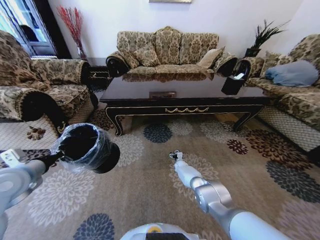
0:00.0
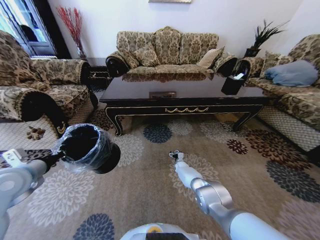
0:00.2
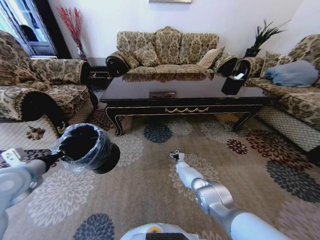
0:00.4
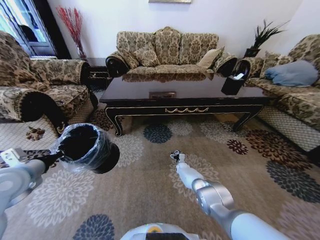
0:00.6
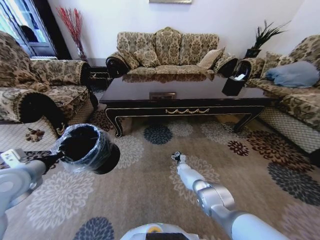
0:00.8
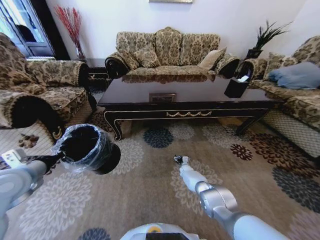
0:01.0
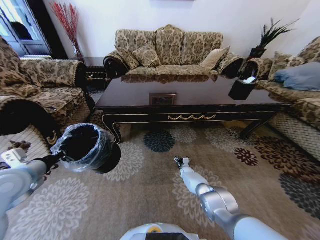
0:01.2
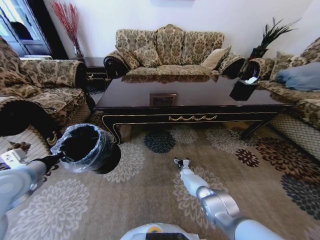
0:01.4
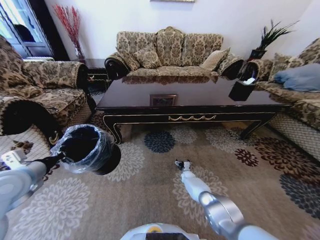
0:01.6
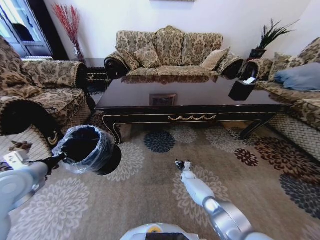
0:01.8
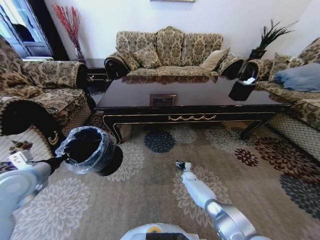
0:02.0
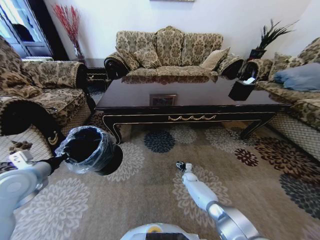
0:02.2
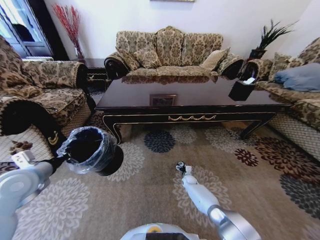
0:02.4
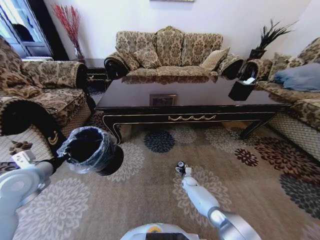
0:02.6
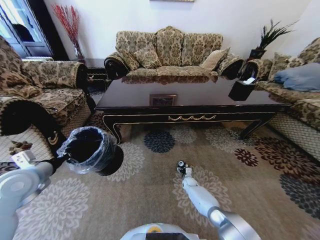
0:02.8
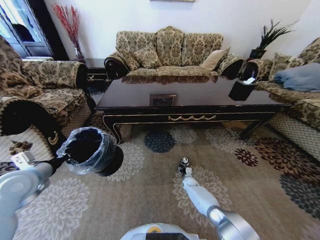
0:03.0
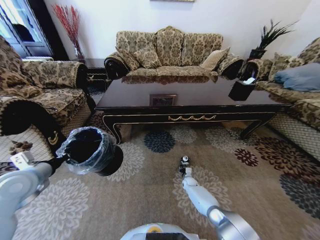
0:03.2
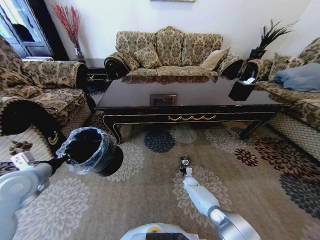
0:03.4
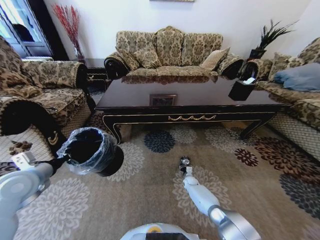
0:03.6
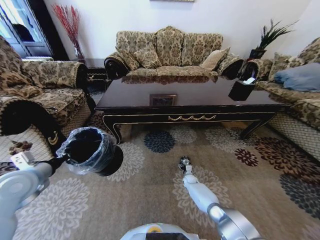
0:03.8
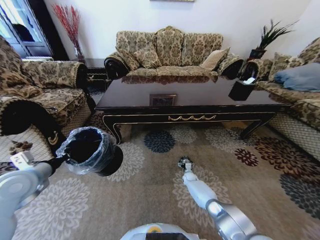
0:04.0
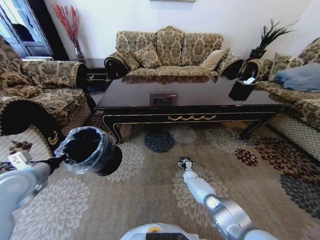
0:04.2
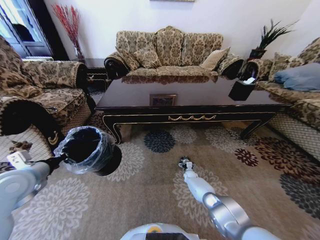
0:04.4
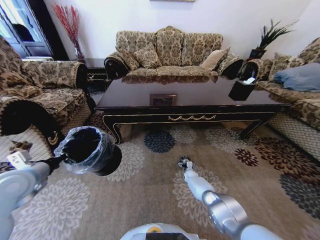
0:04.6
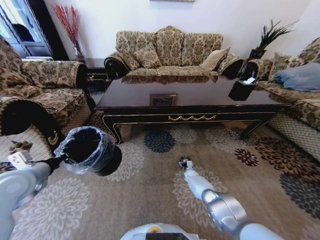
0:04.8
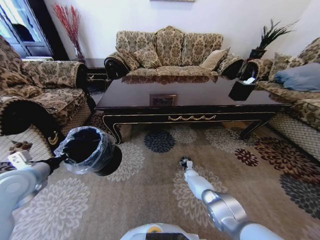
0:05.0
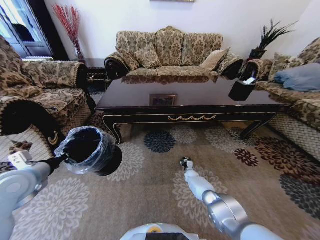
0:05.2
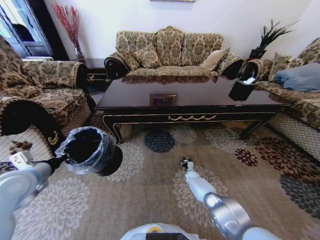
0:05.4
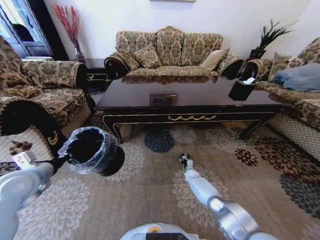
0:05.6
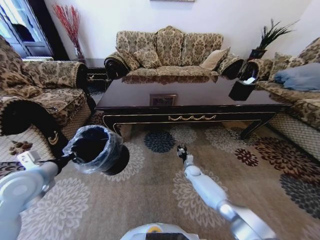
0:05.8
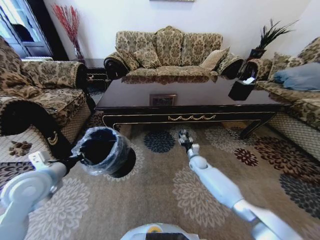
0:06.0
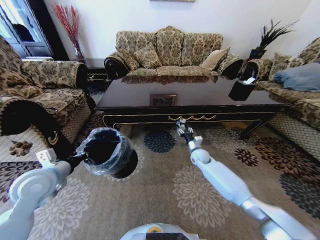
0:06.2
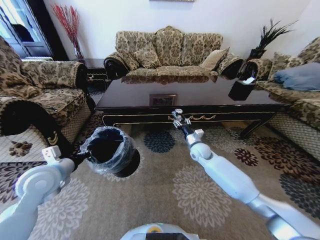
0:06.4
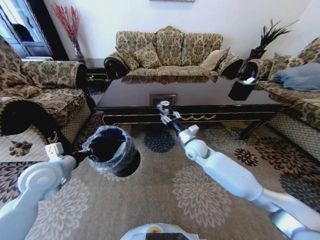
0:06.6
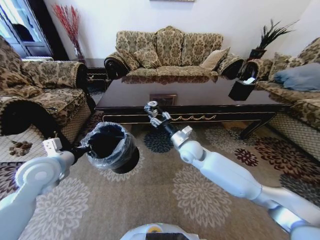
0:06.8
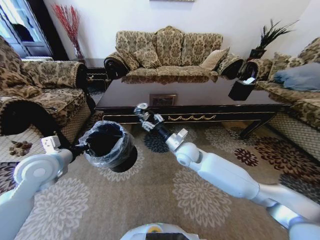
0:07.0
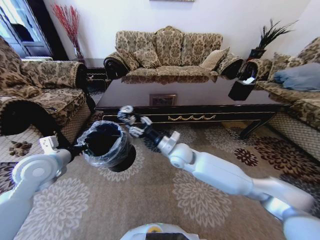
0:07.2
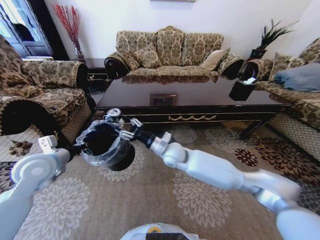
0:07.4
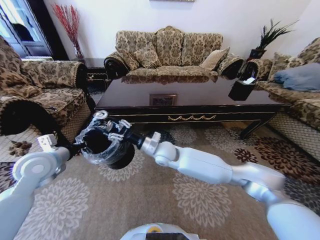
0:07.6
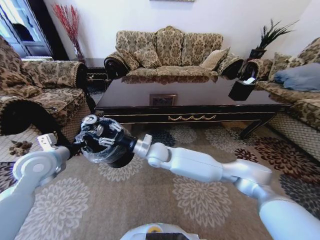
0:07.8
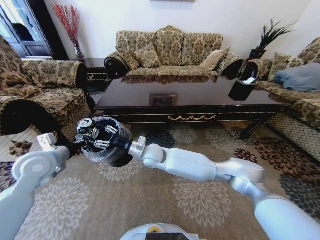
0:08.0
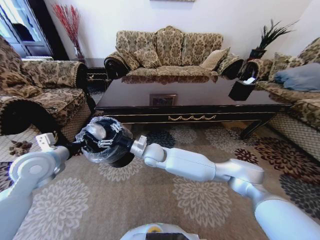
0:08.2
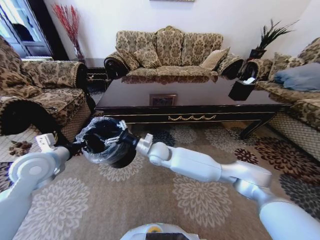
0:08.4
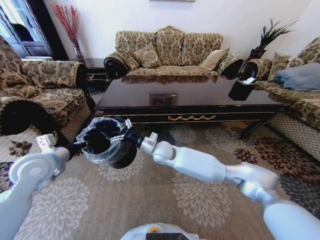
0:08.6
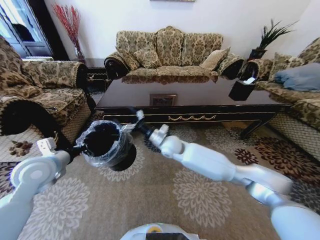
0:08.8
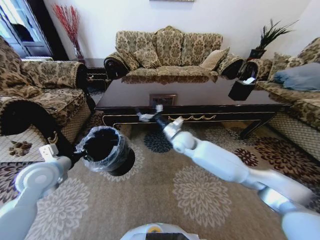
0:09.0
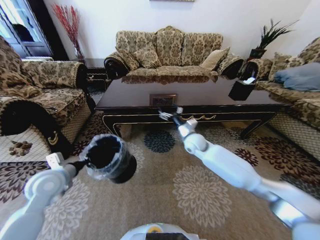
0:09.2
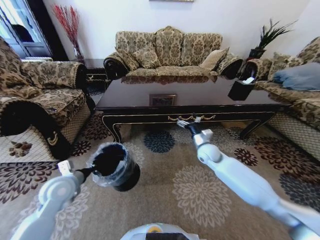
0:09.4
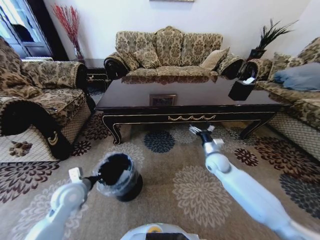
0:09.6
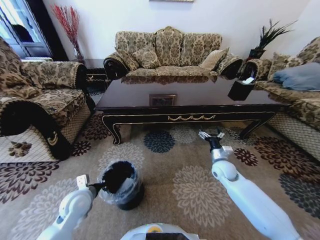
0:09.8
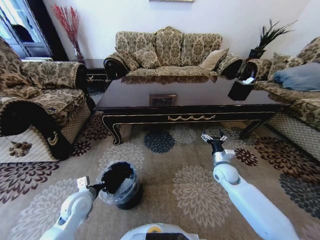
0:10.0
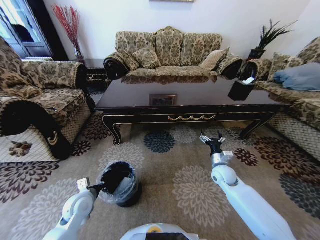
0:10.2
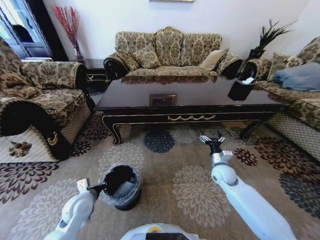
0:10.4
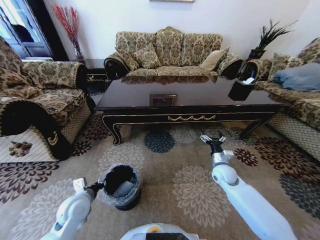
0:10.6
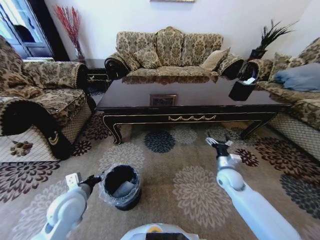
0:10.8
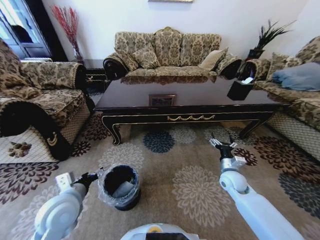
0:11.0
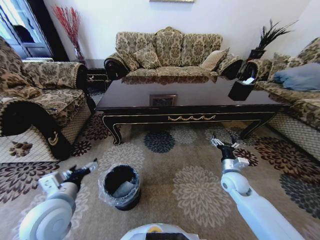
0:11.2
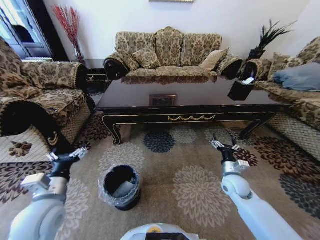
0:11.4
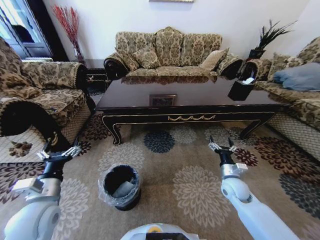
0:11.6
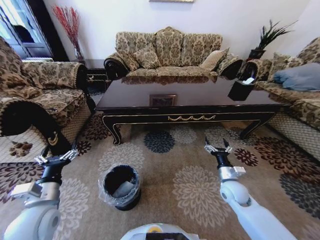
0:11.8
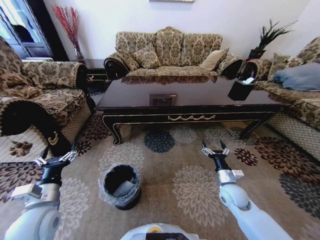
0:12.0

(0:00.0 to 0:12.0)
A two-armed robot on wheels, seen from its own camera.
Task of the whole recording: Move to the front of the table and pick up the trash from the floor, then place it into the trash bin.
0:00.0 - 0:01.6: The right gripper moves backward, some 5 cm.
0:01.6 - 0:04.4: The grippers move only a little.
0:04.4 - 0:06.0: The left gripper heads to the right, covering about 5 cm. The right gripper shifts approximately 15 cm upward, and closes up.
0:06.0 - 0:07.6: The right gripper is displaced to the left and upward by approximately 30 cm, while the left gripper moves forward, some 5 cm.
0:07.6 - 0:09.0: The right gripper is displaced to the right and forward by approximately 10 cm, and opens up.
0:09.0 - 0:10.4: The left gripper travels downward and to the right by some 20 cm, while the right gripper shifts some 25 cm to the right, downward and backward.
0:10.4 - 0:12.0: The right gripper shifts roughly 10 cm backward; the left gripper shifts about 10 cm upward and backward, and opens.

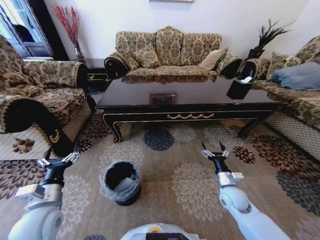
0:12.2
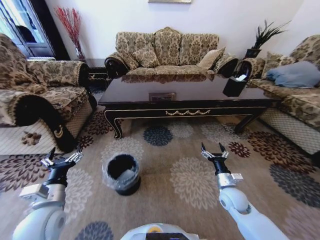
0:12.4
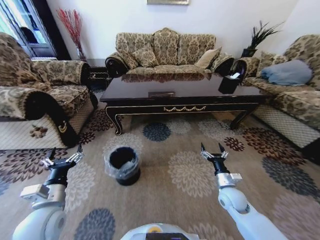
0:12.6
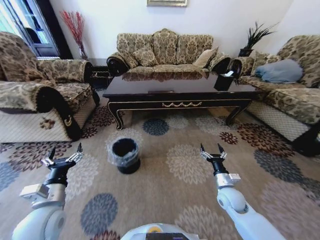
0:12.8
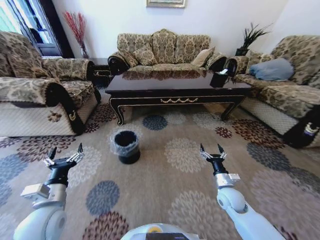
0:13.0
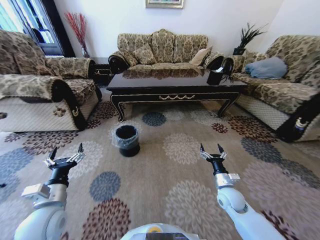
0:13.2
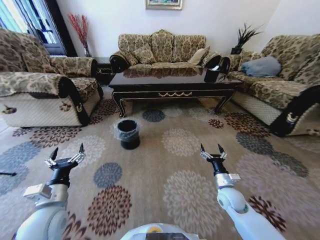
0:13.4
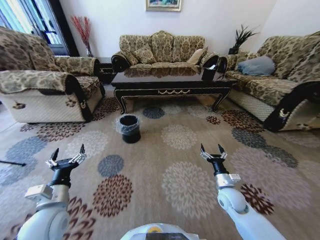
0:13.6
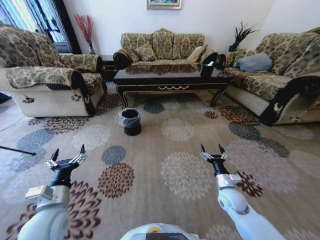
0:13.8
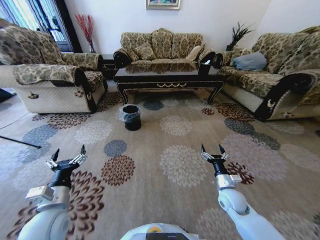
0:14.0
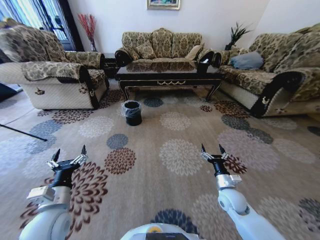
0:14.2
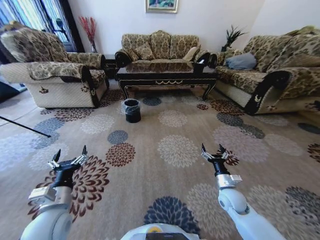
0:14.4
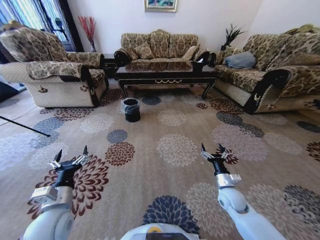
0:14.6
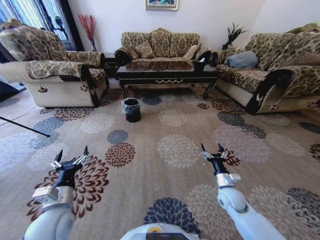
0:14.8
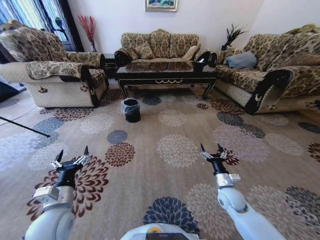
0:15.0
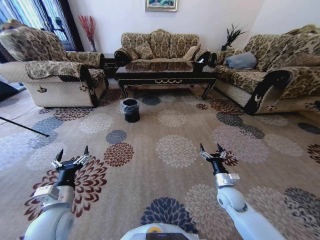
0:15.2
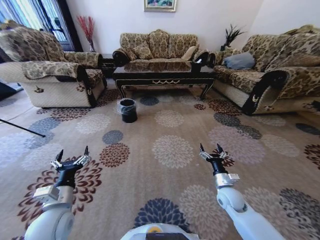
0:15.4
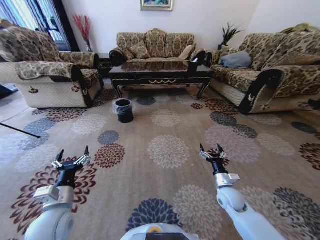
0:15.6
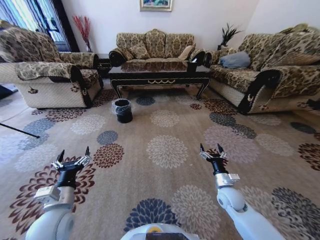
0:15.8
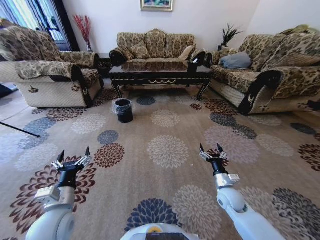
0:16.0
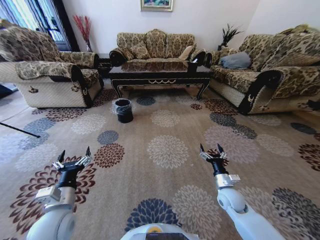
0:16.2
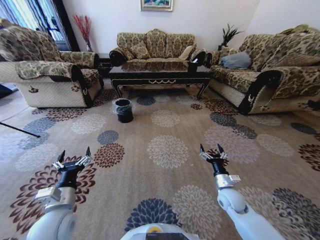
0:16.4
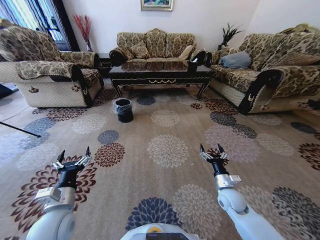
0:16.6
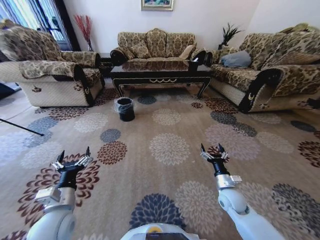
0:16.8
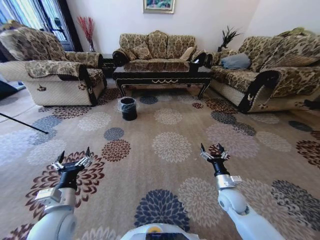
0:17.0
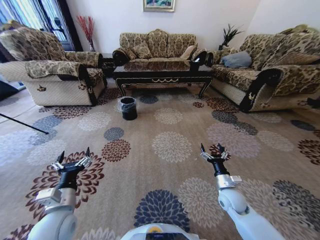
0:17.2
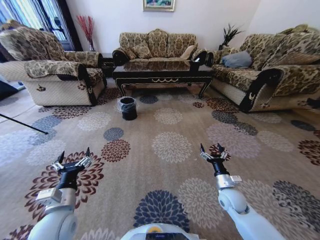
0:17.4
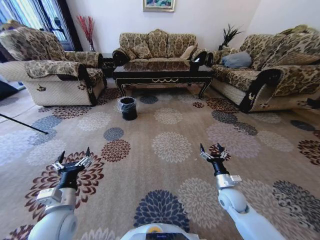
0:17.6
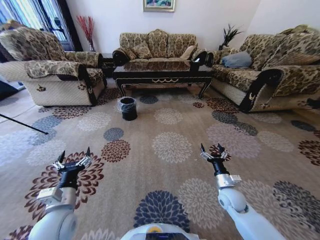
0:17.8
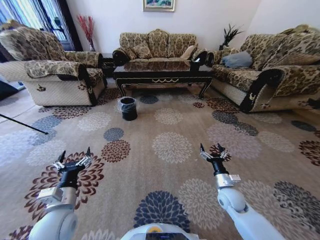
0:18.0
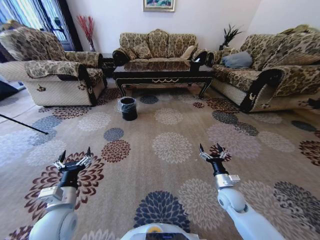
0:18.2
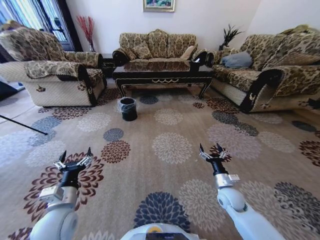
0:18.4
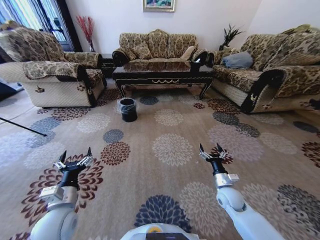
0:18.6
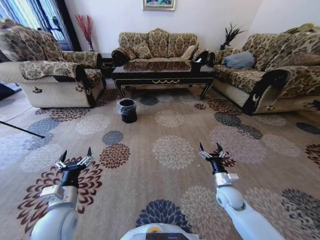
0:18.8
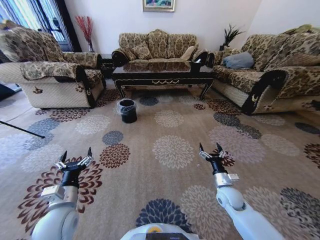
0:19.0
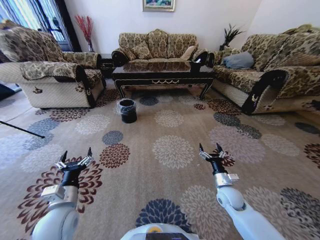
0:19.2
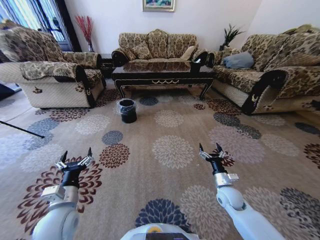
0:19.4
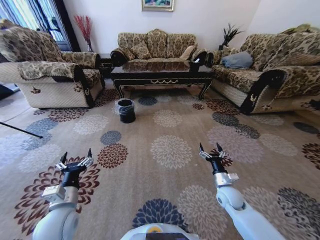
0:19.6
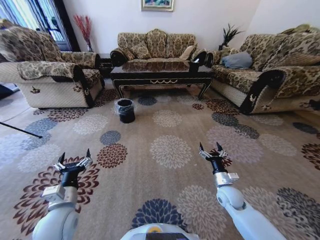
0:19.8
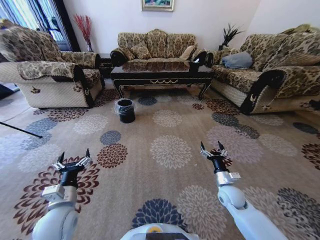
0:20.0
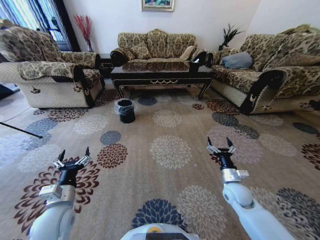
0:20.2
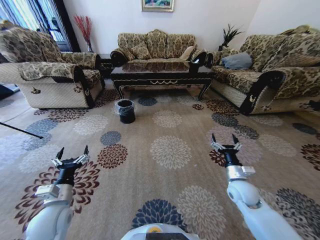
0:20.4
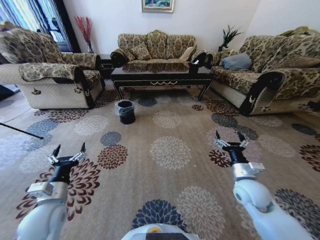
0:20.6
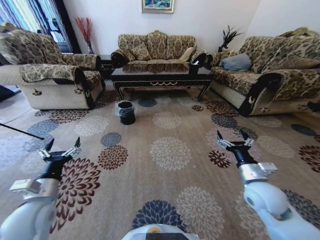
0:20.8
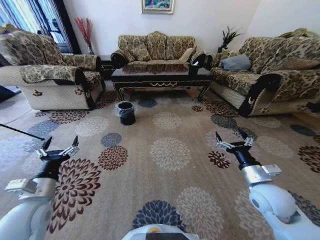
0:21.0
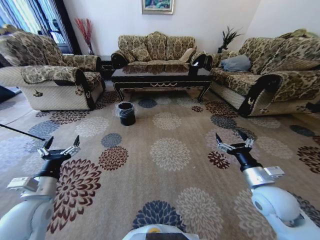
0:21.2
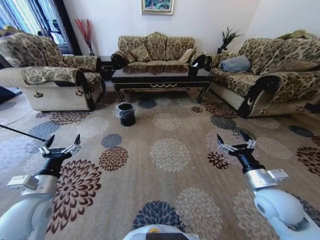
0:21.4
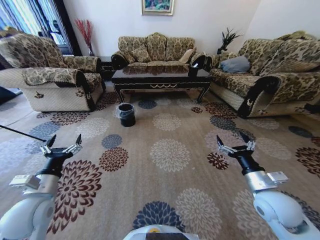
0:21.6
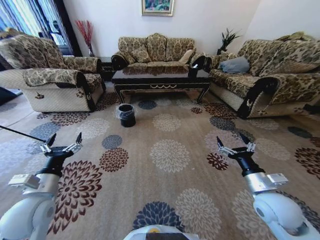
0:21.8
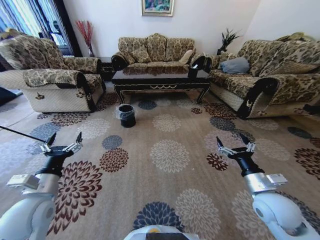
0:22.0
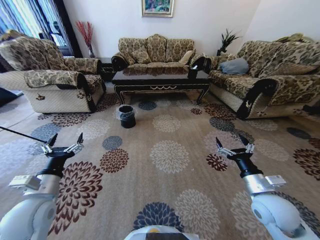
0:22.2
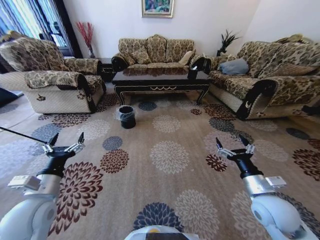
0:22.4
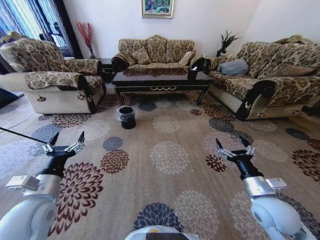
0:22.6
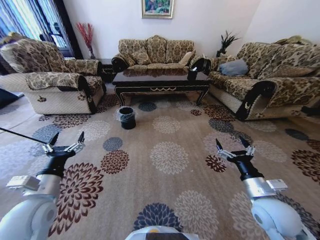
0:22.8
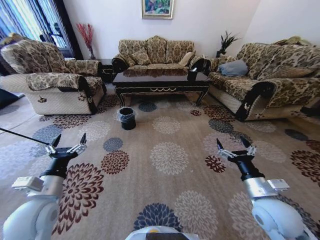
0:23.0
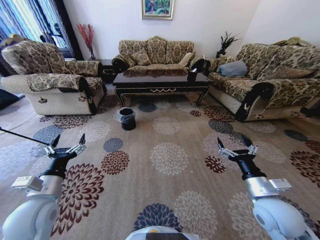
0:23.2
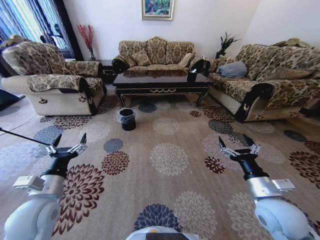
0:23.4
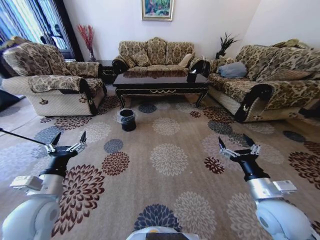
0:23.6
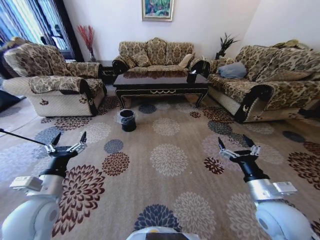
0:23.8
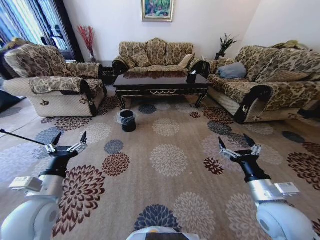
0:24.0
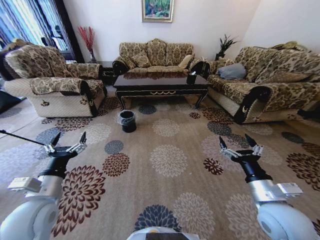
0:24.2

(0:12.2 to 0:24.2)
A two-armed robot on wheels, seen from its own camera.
Task of the whole recording: Move to the front of the table and pick up the trash from the floor, then place it into the trash bin.
0:16.6 - 0:18.2: The two grippers keep their place.
0:18.2 - 0:19.8: Both grippers stay put.
0:19.8 - 0:21.2: The left gripper heads to the left and upward, covering about 10 cm; the right gripper shifts approximately 15 cm upward.
